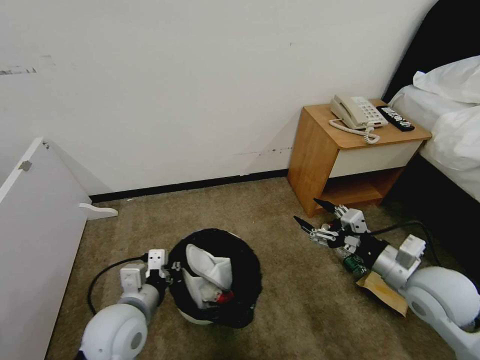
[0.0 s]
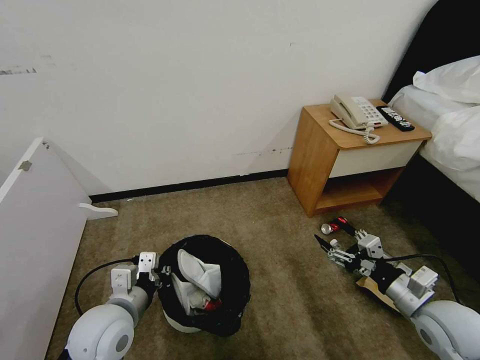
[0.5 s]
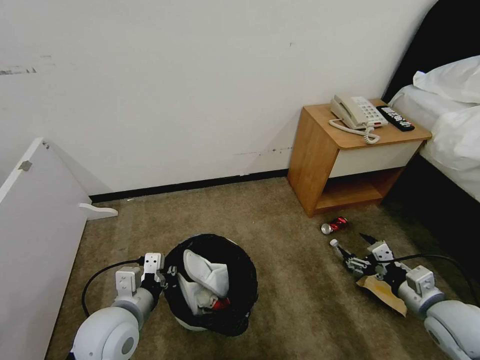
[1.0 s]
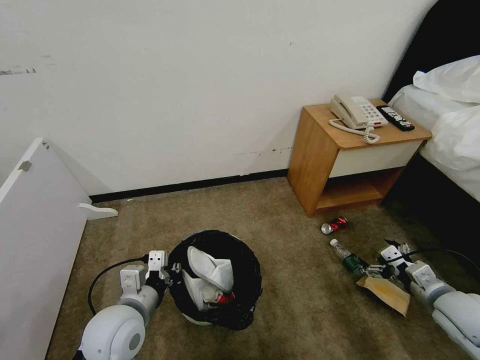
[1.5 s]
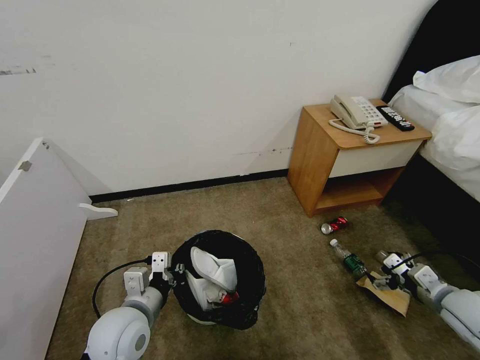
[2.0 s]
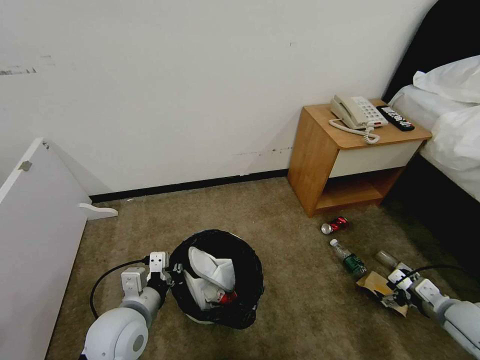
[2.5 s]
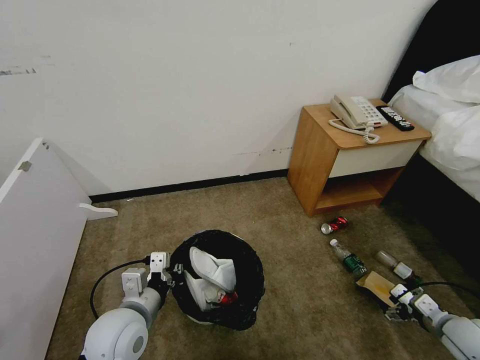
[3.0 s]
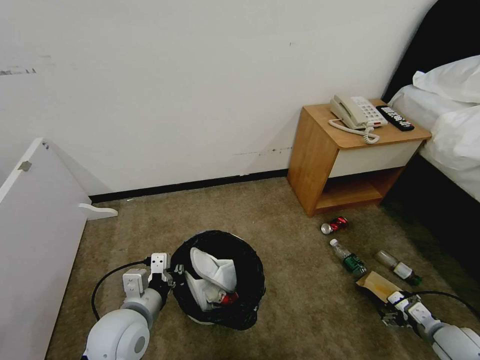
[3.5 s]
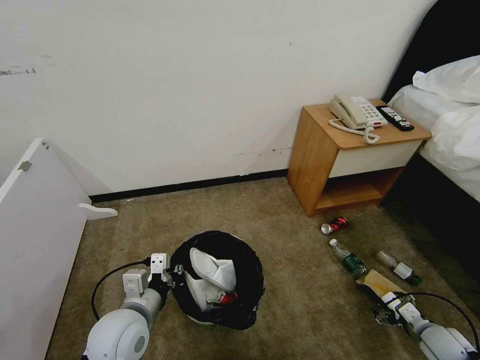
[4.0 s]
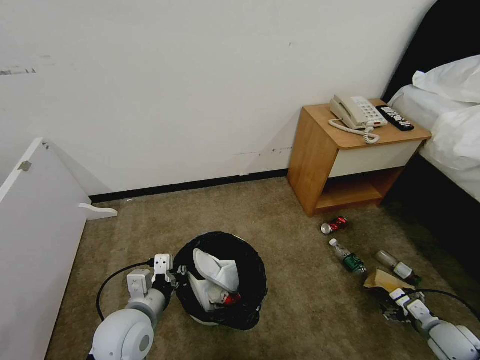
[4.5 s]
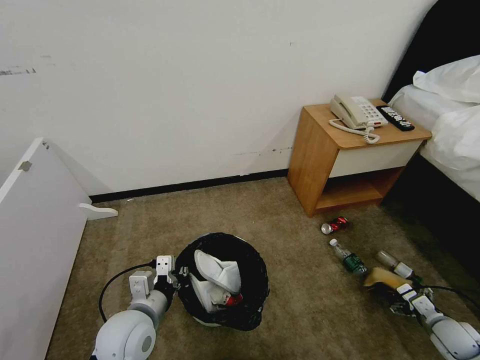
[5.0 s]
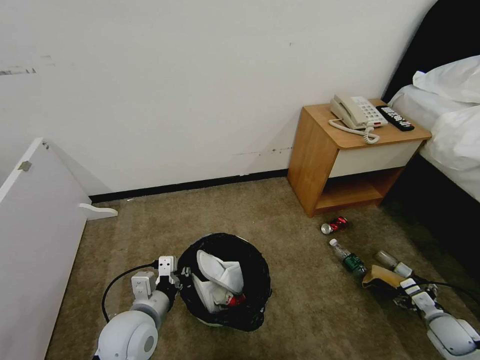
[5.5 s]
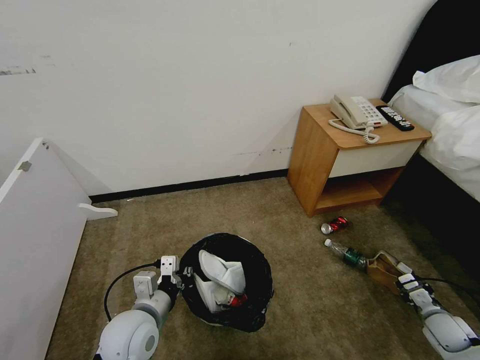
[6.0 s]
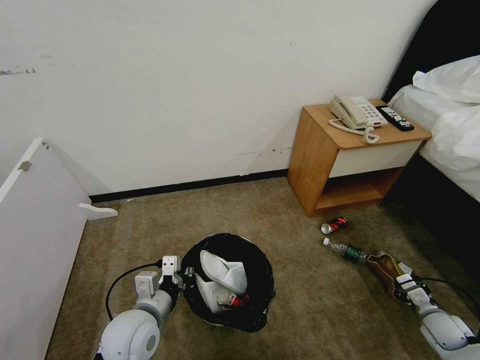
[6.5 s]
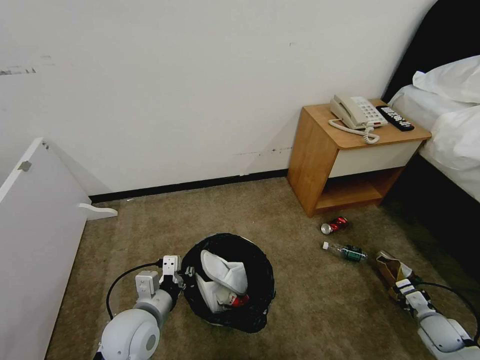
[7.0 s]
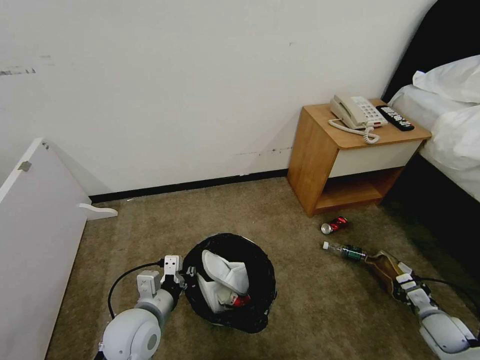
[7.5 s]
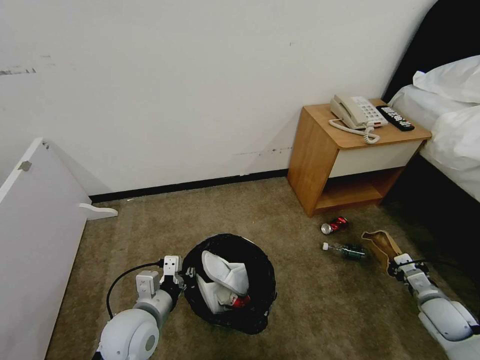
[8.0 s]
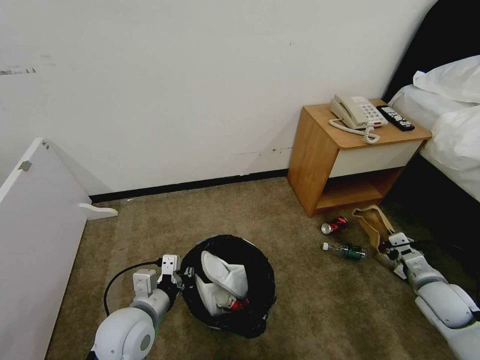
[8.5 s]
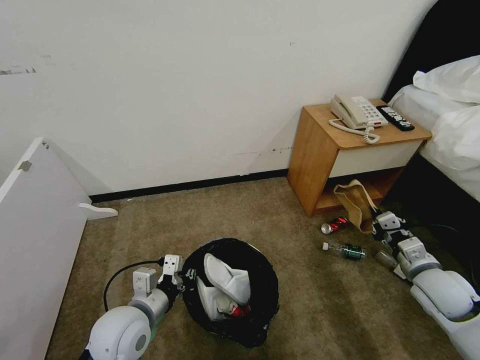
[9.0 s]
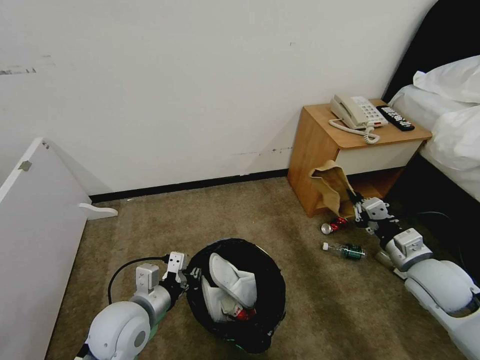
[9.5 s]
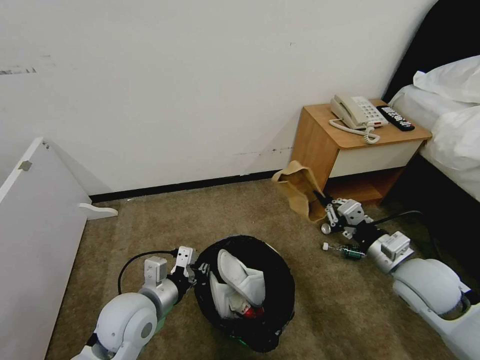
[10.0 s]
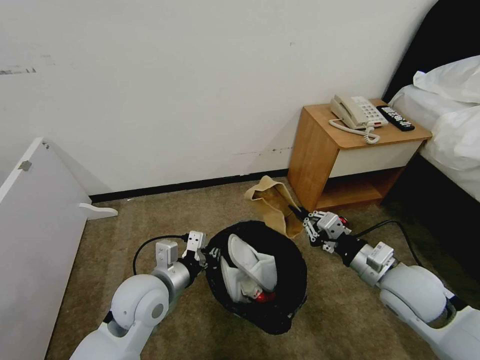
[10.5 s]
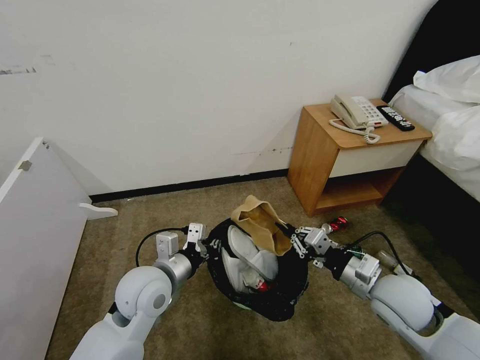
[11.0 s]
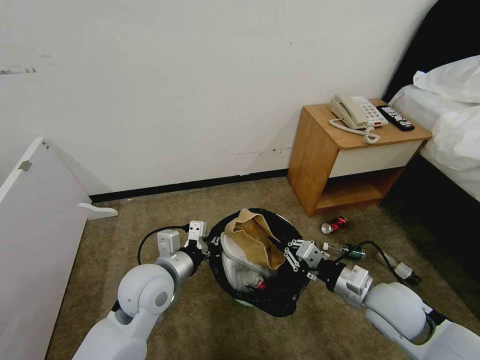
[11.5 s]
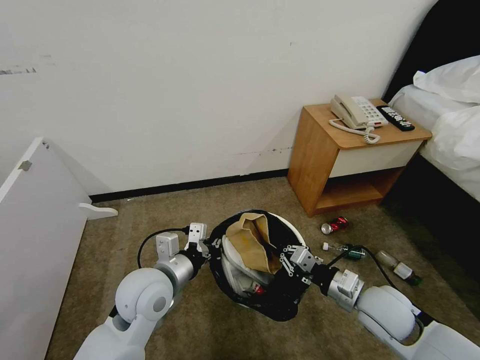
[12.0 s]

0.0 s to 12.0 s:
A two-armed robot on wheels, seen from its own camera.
Task of the whole recording: Pick up the trash bin, then pick up the garbage from the floor and place it into the trash bin.
0.0 to 2.0 s: The right gripper moves to the right and downward, approximately 15 cm.
2.0 to 4.0 s: The right gripper heads downward, covering roughly 15 cm.
4.0 to 6.0 s: The right gripper closes.
6.0 to 8.0 s: The right gripper is displaced upward by some 5 cm, and closes up.
8.0 to 10.0 s: The right gripper moves upward and to the left, about 25 cm.
10.0 to 12.0 s: The right gripper goes some 10 cm downward and to the left; the left gripper ends up approximately 5 cm from where it was.

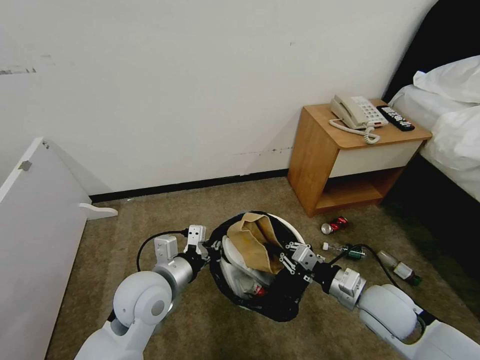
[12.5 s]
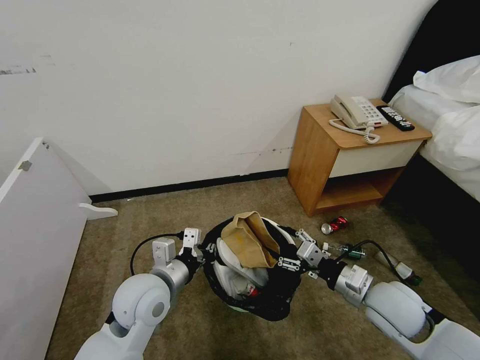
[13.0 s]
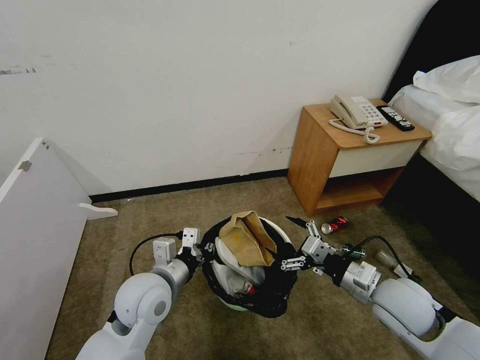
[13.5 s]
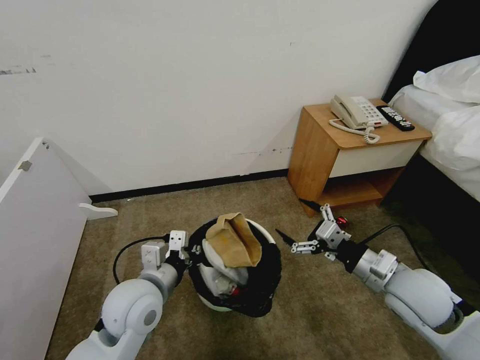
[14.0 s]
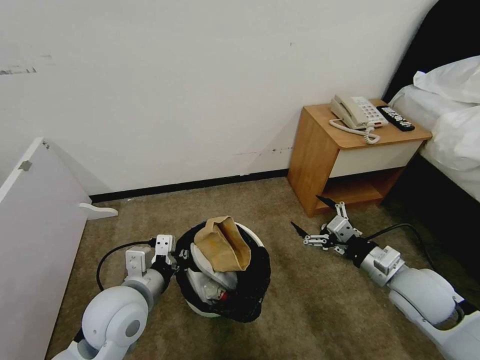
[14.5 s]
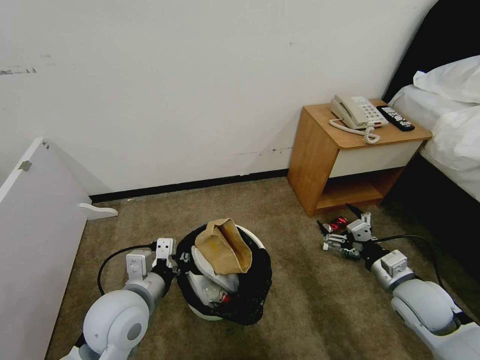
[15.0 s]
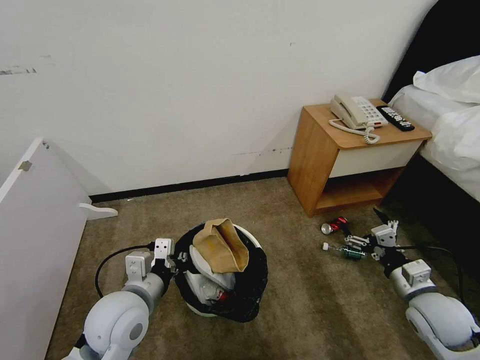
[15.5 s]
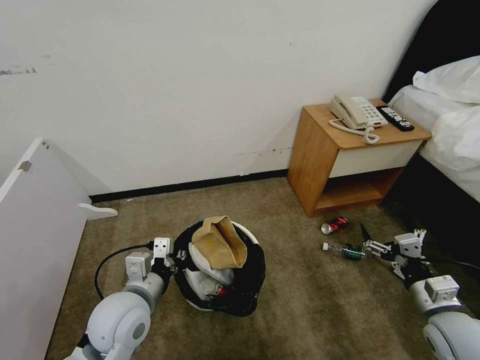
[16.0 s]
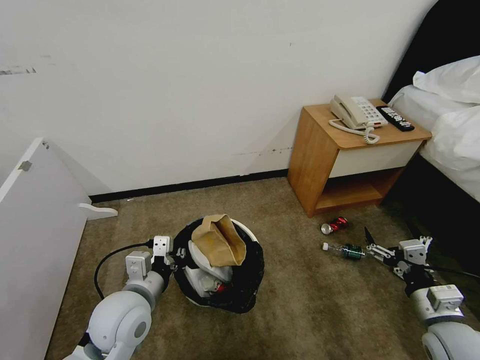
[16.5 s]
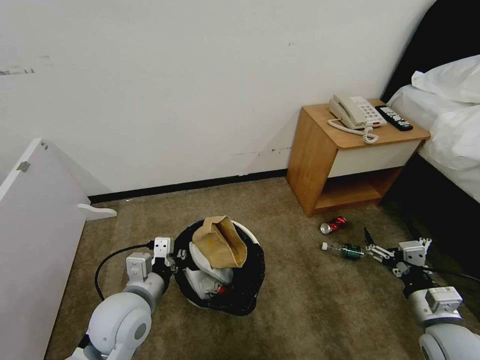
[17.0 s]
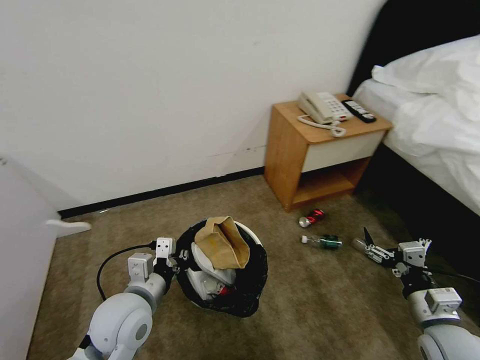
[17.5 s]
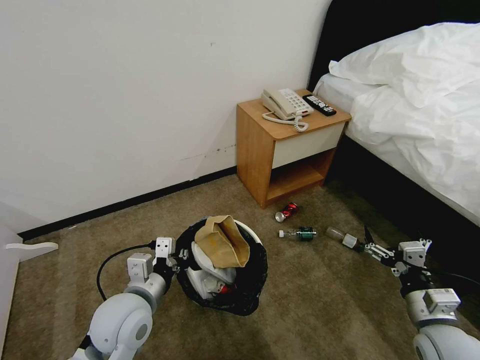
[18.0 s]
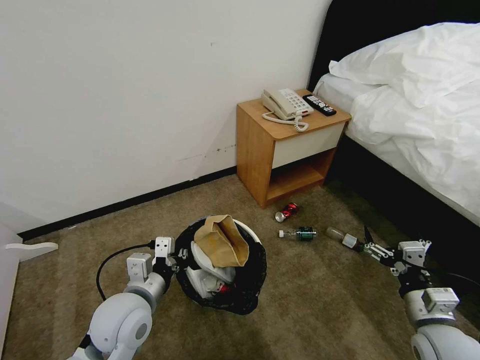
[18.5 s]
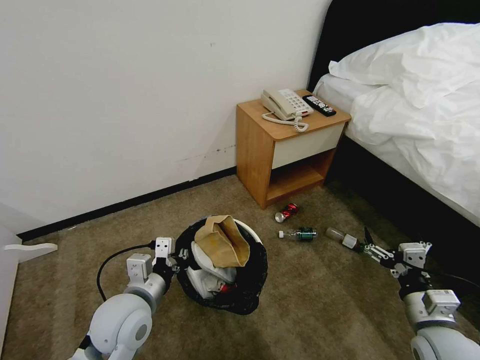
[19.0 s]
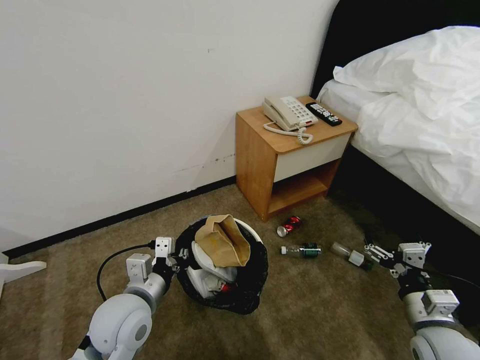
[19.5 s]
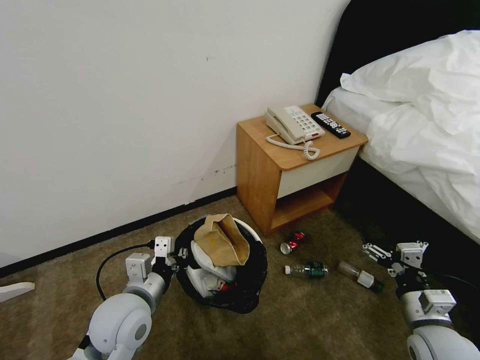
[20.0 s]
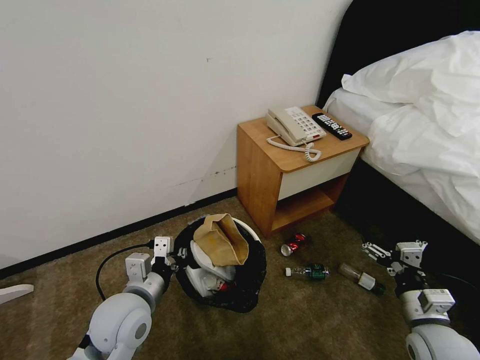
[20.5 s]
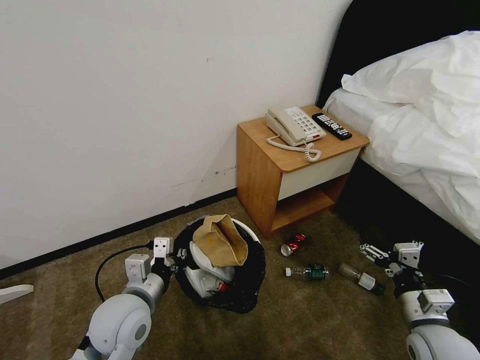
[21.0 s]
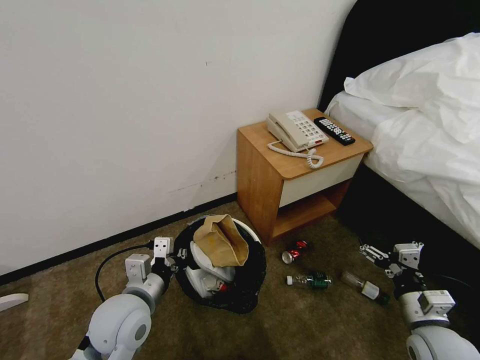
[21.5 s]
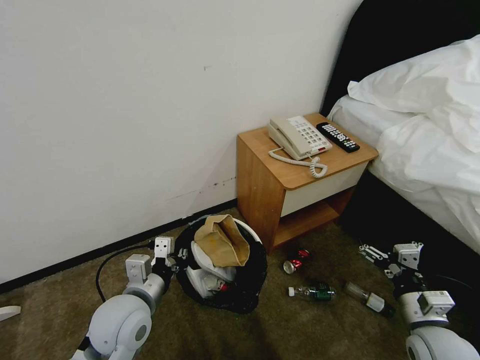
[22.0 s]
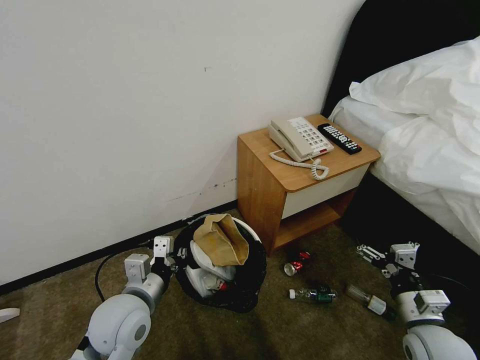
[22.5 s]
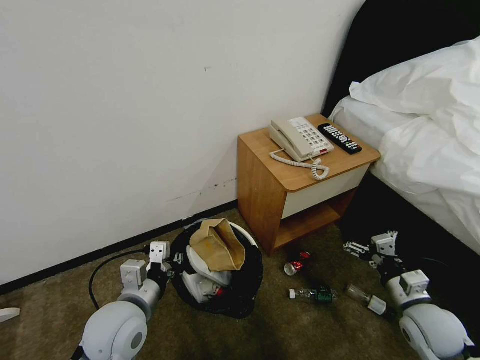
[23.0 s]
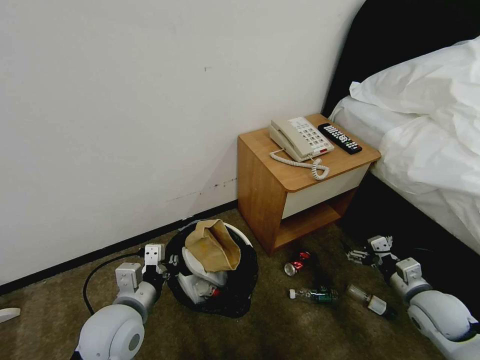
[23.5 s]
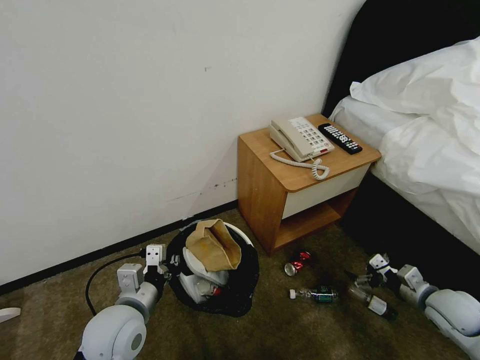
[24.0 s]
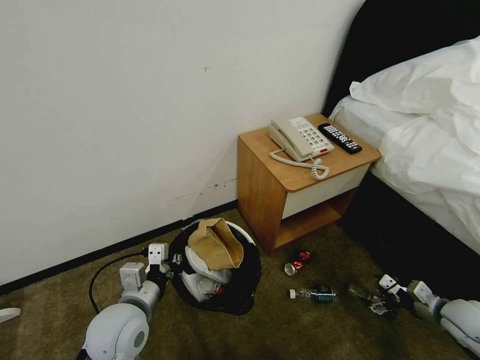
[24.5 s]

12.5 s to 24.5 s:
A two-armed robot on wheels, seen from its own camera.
Task of the whole recording: Pick up the trash bin, then pick up the garbage from the floor and place it into the trash bin.
12.5 to 14.5 s: The right gripper moves to the right, some 5 cm, and opens.
14.5 to 16.5 s: The right gripper moves backward, some 10 cm.
20.5 to 22.5 s: Neither gripper changes place.
22.5 to 24.5 s: The right gripper heads to the right and forward, covering roughly 15 cm.

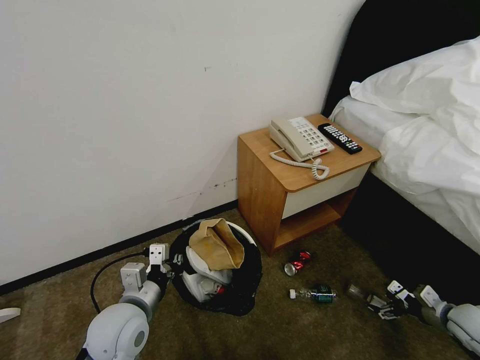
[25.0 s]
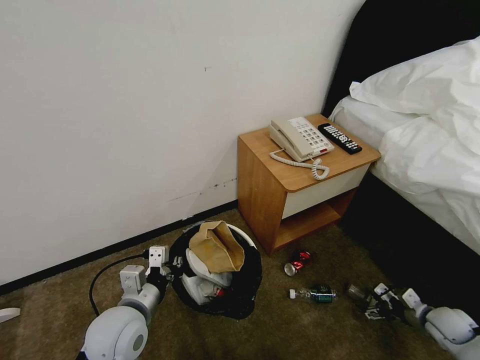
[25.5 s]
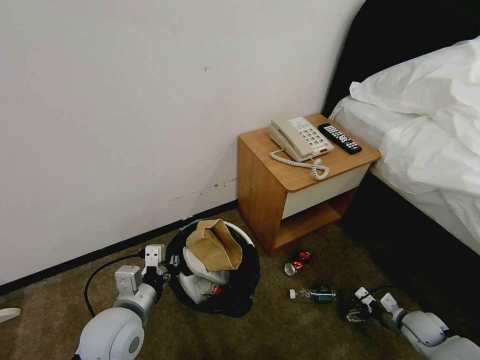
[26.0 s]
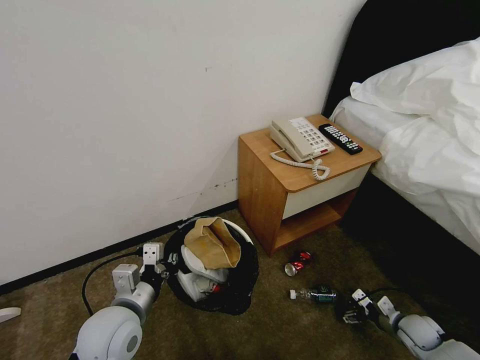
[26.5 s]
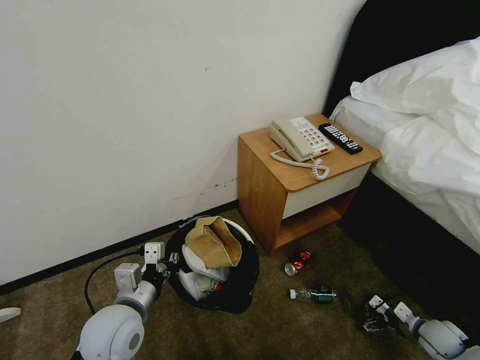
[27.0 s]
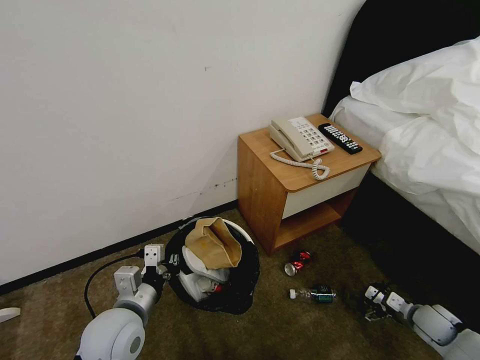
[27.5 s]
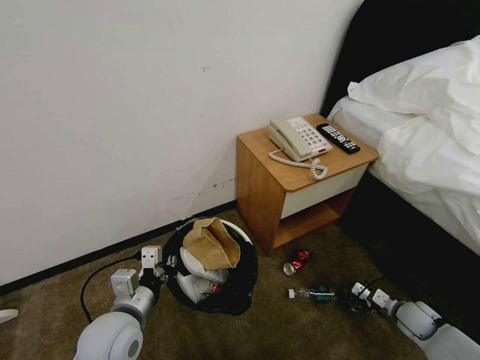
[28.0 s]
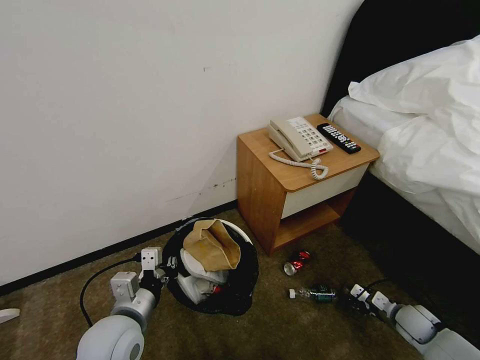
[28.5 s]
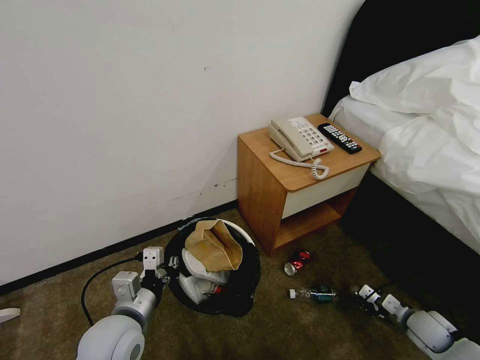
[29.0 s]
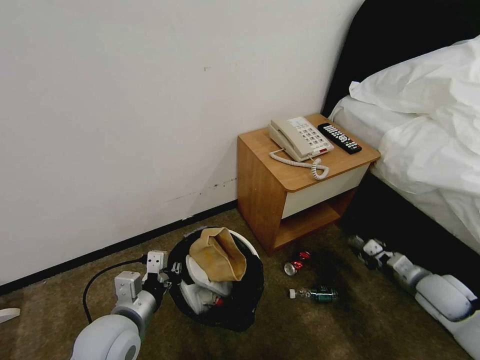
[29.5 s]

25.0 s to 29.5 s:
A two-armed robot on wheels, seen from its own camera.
Task of the whole recording: Pick up the trash bin, then pick up the garbage from the floor and place it into the trash bin.
25.0 to 27.0 s: The right gripper heads downward, covering roughly 5 cm.
27.0 to 29.5 s: The right gripper heads upward and forward, covering some 15 cm, and closes up.
